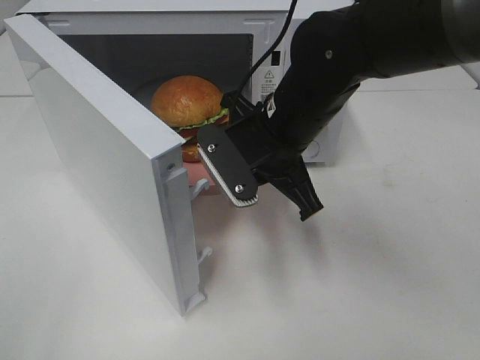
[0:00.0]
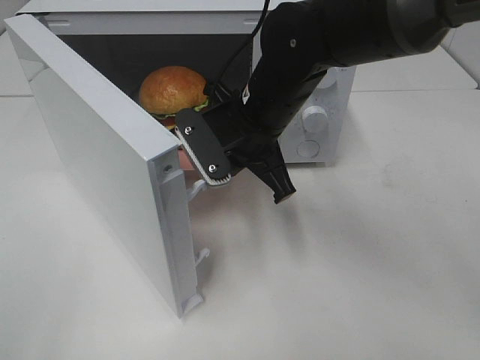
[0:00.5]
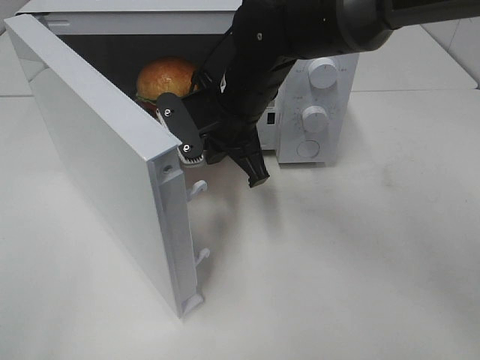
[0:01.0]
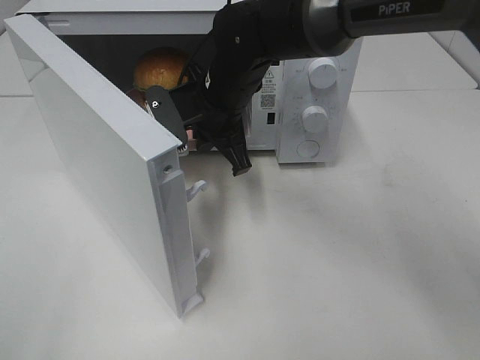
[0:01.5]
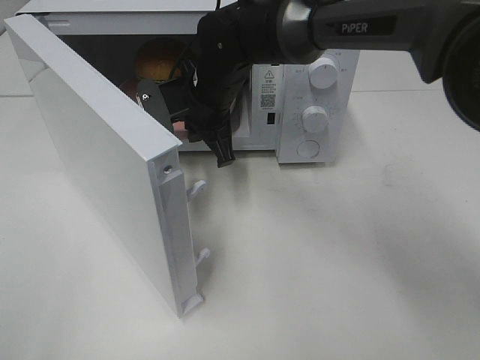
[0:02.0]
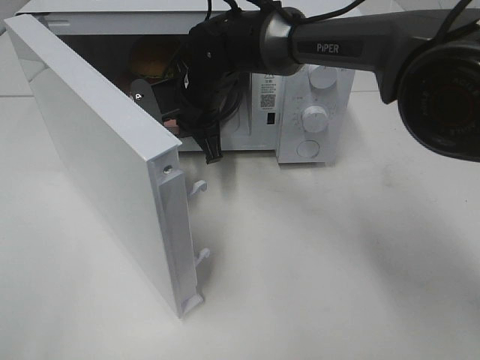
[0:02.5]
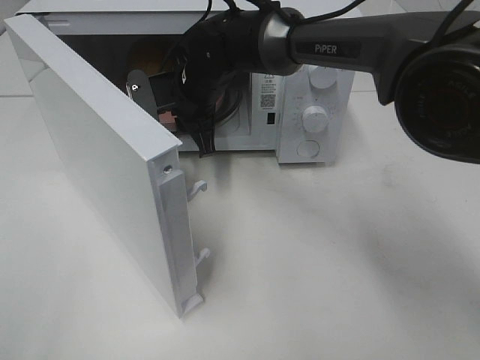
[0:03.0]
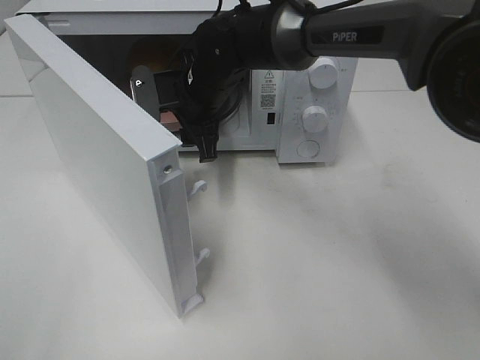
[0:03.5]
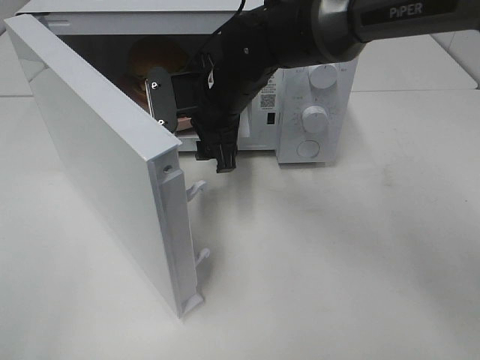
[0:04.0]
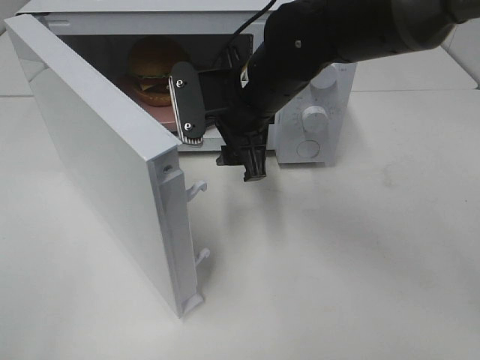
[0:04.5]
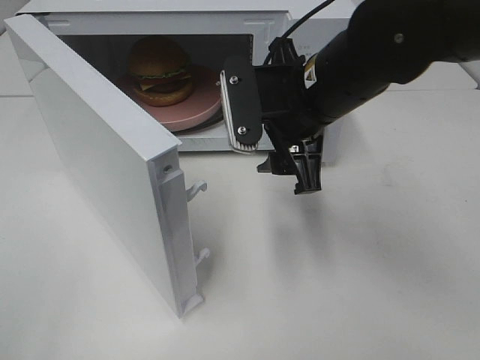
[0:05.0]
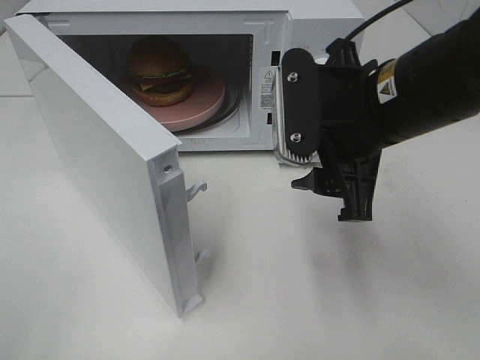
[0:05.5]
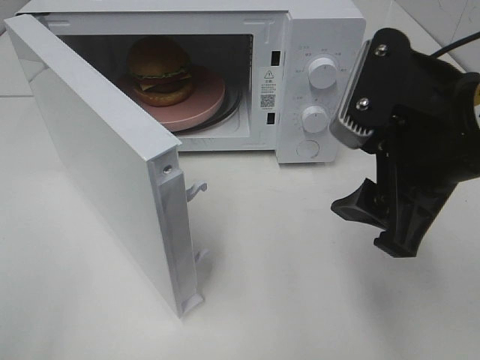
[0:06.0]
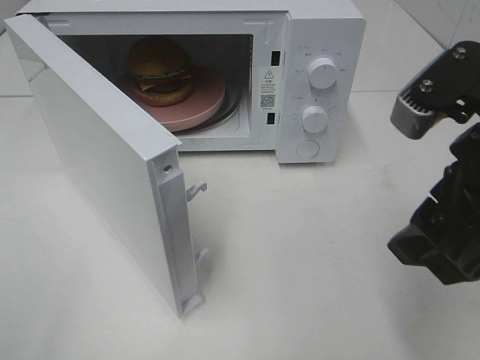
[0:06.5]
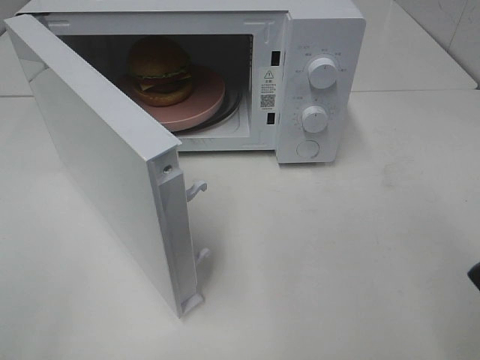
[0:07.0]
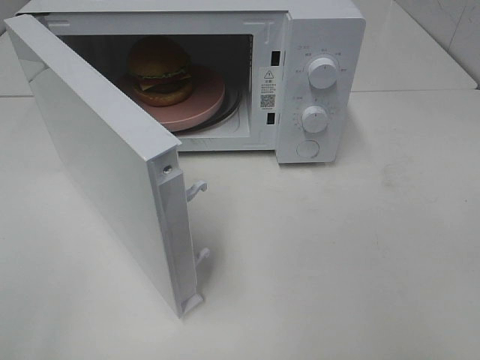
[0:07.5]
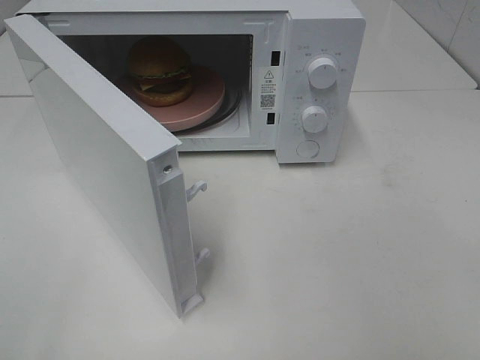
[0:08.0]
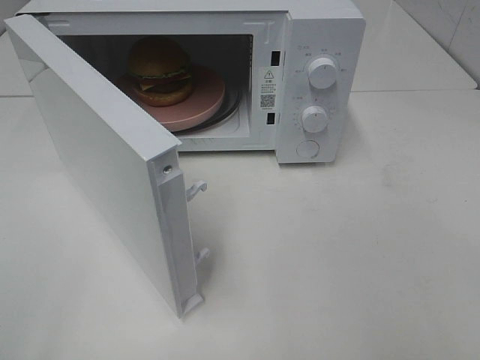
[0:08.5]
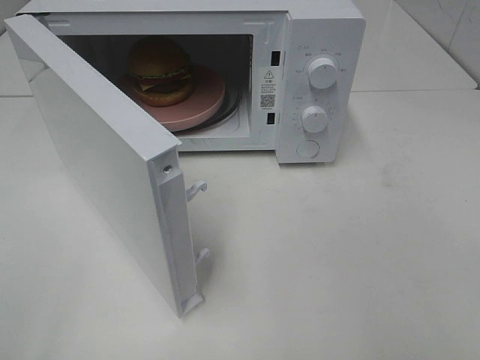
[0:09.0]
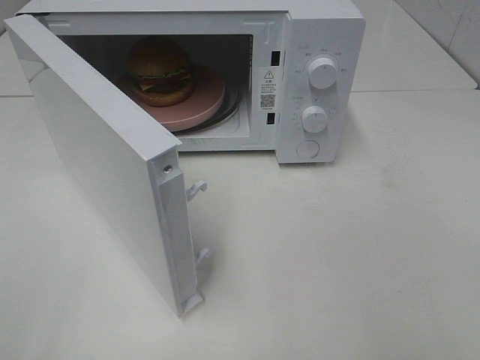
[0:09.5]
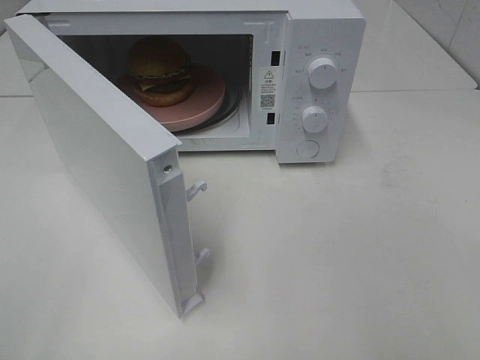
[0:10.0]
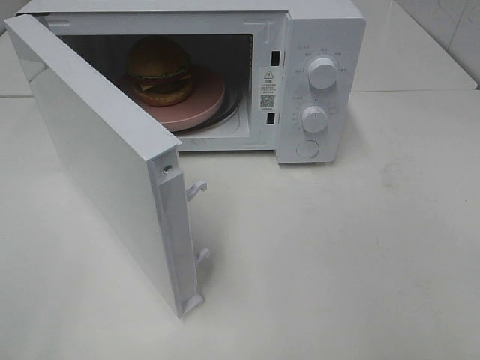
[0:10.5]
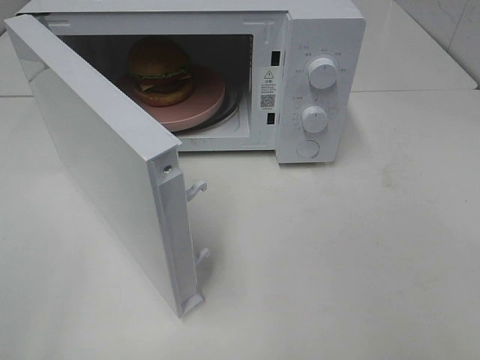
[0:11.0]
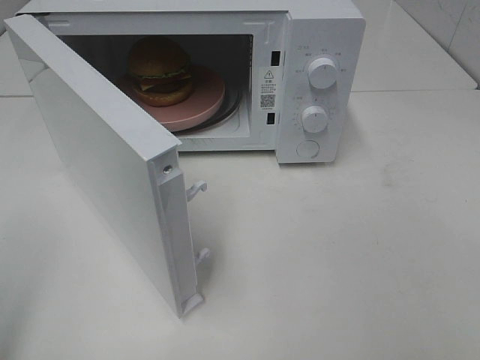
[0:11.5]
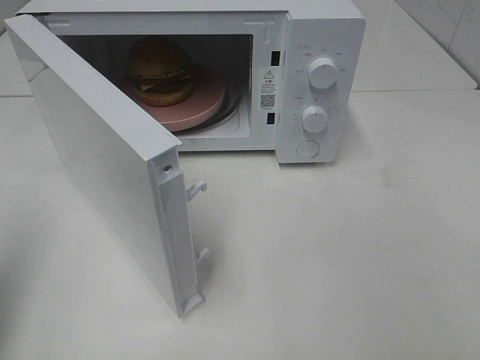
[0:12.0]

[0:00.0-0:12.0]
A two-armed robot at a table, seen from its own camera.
Task of the whole recording: Heat the burger.
Step, 0.0 to 3.0 s: Right hand: place the plate in the microwave.
0.0 to 2.0 s: The right gripper is displaced forward and to the left by about 15 cm.
2.0 to 4.0 s: The right gripper opens up.
4.0 to 6.0 s: The right gripper heads backward, to the right and upward, covering about 25 cm.
6.0 to 8.0 s: The right gripper moves backward and to the right, some 20 cm.
10.0 to 12.0 s: The left gripper moves forward, approximately 15 cm, and closes its fingers.

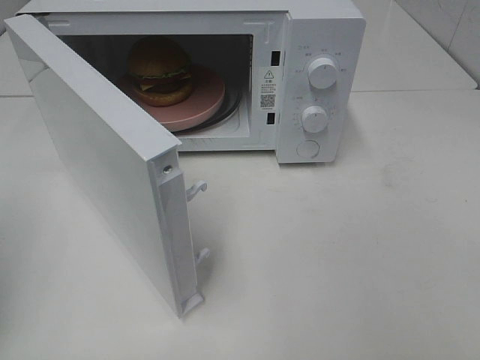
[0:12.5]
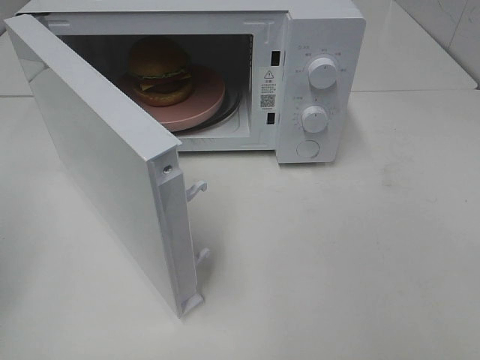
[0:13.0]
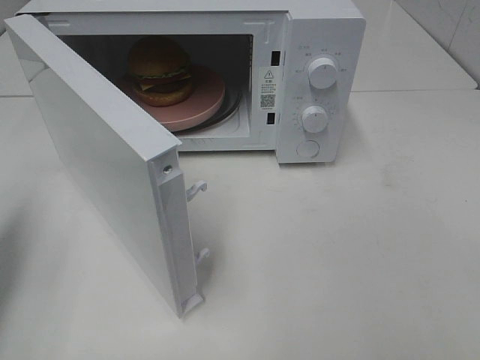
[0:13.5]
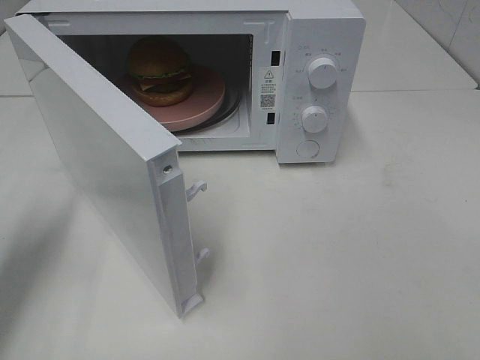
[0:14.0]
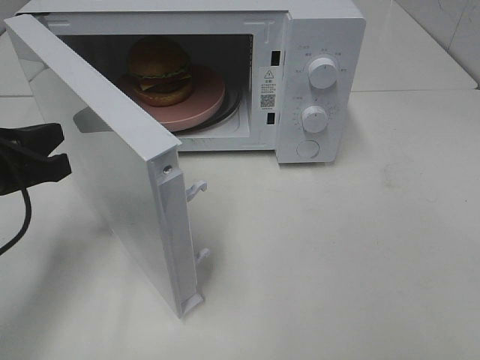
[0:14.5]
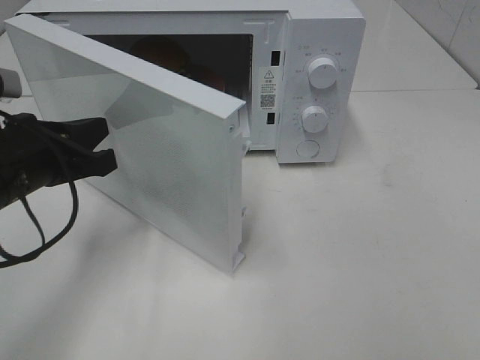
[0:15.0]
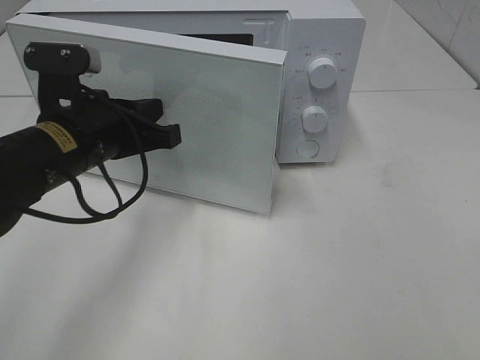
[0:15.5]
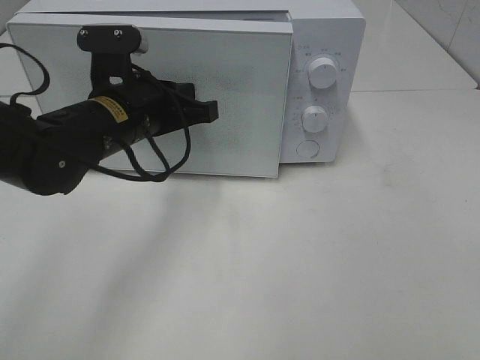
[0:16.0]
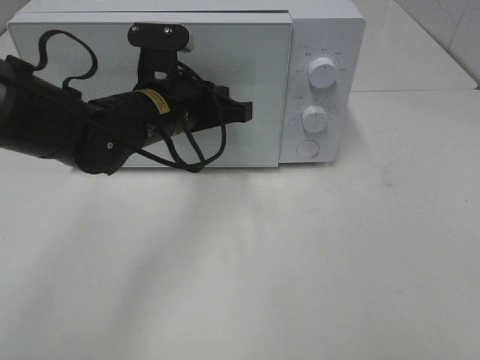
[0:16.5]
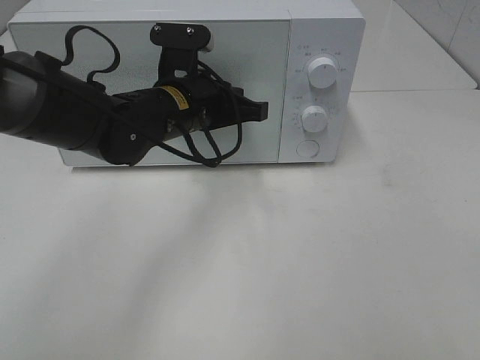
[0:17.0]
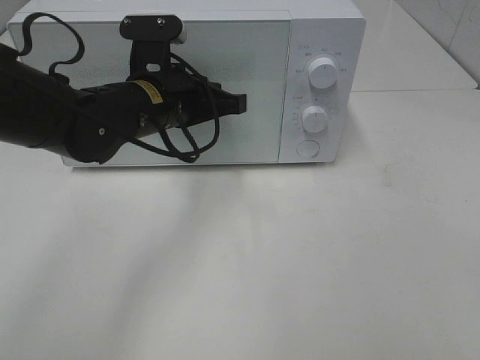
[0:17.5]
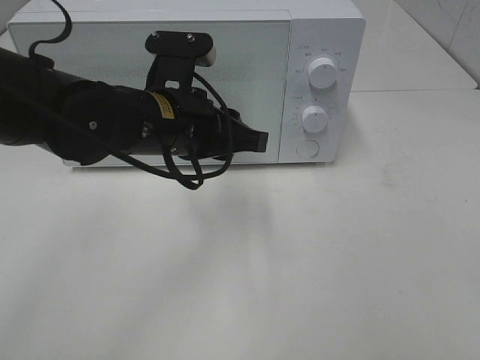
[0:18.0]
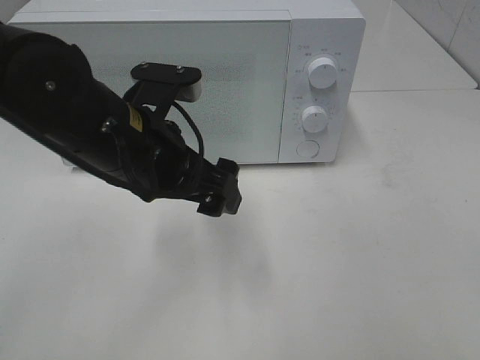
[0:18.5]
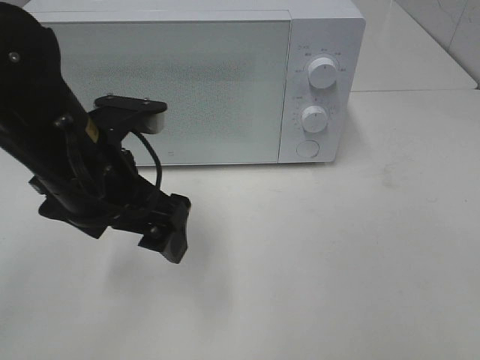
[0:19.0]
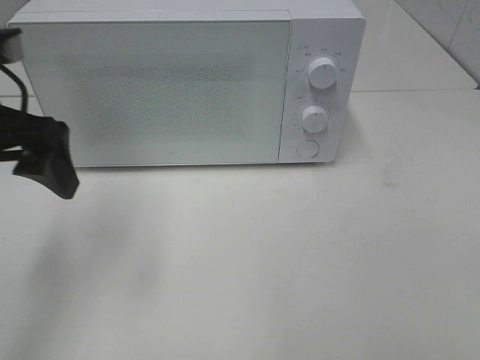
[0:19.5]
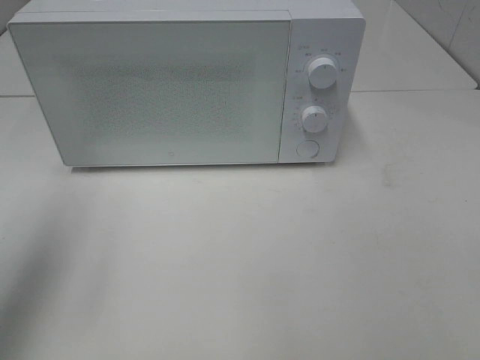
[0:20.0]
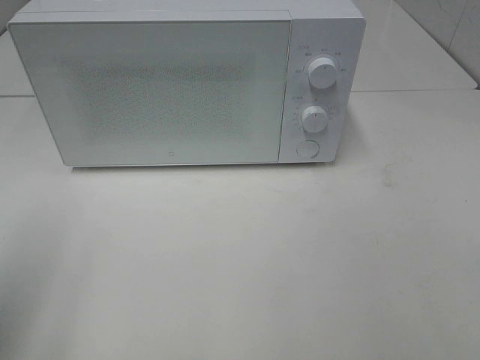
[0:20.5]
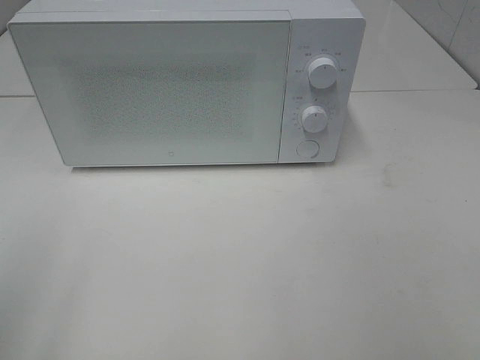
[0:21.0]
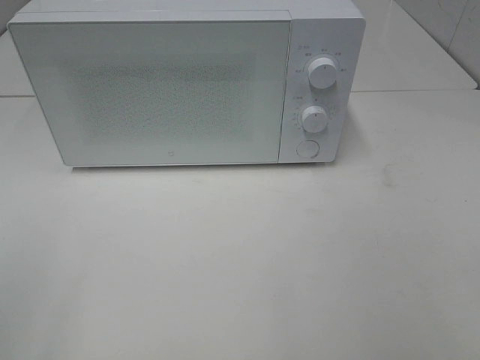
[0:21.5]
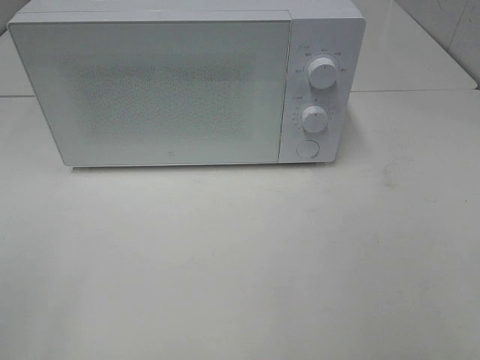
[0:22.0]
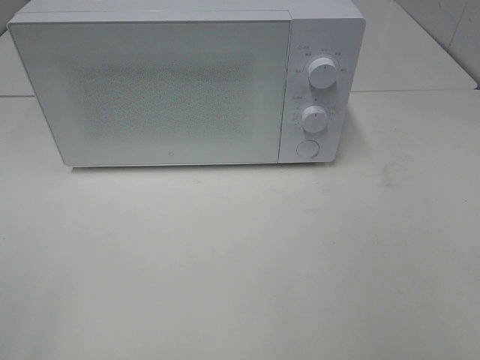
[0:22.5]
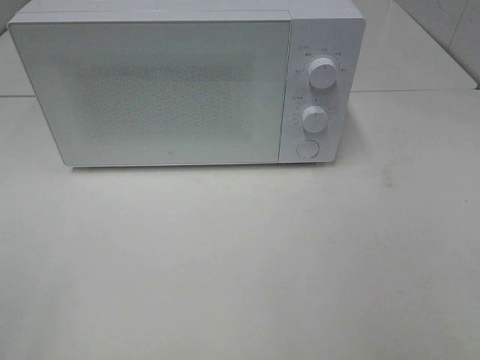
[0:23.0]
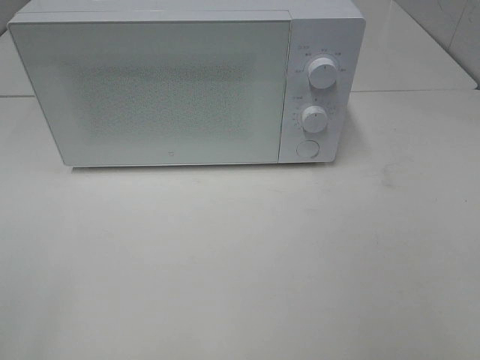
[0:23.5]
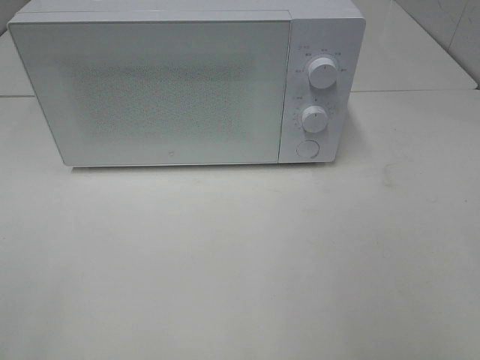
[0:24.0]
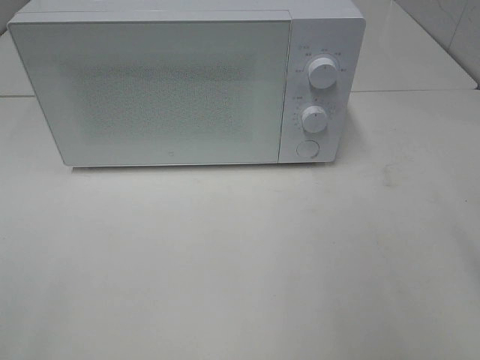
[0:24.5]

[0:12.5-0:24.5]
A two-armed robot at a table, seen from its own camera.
Task of the whole recording: Heat the burger.
Step, 12.5 to 17.5 s: Left hand: close the microwave door.
12.5 to 14.5 s: The left gripper moves to the right, forward and downward, roughly 15 cm.
14.5 to 16.5 s: The left gripper is displaced to the right and forward by approximately 20 cm.
16.5 to 18.5 s: The left gripper heads backward, covering approximately 10 cm, and opens.
18.5 to 20.5 s: The left gripper moves to the left and backward, about 25 cm.
20.5 to 22.5 s: The left gripper heads backward, covering about 10 cm.

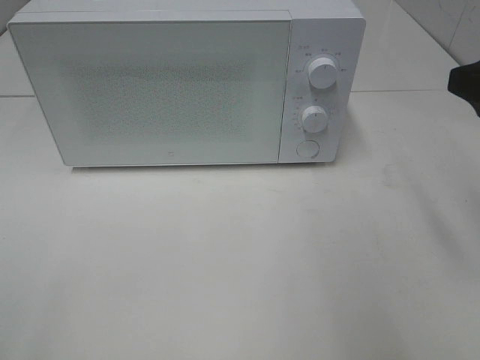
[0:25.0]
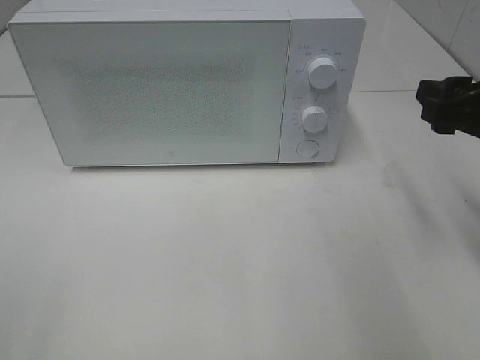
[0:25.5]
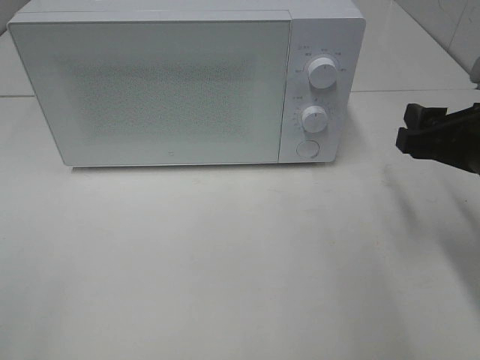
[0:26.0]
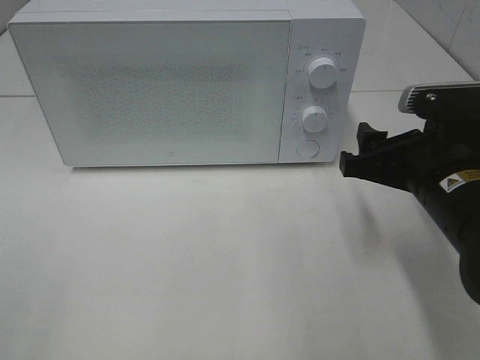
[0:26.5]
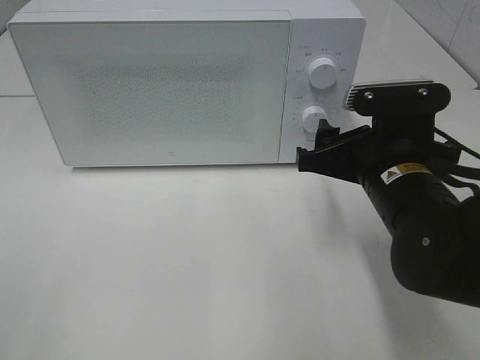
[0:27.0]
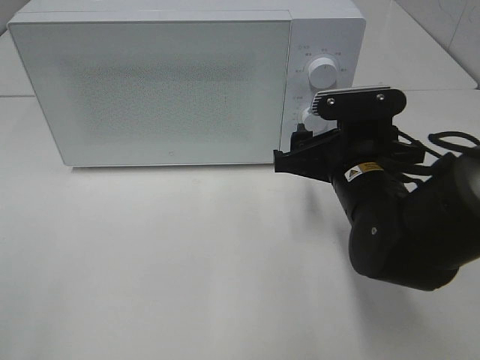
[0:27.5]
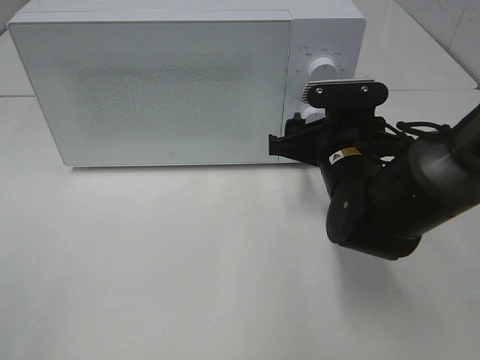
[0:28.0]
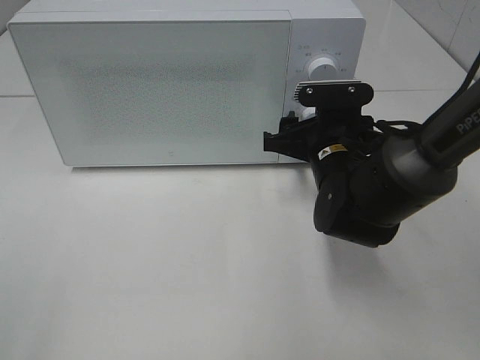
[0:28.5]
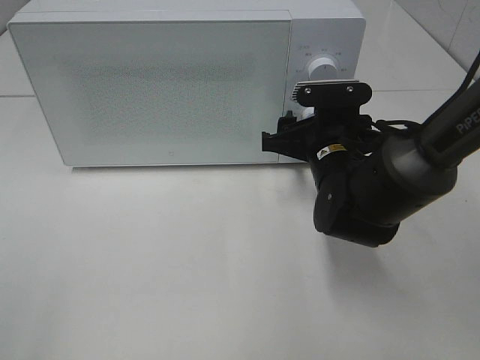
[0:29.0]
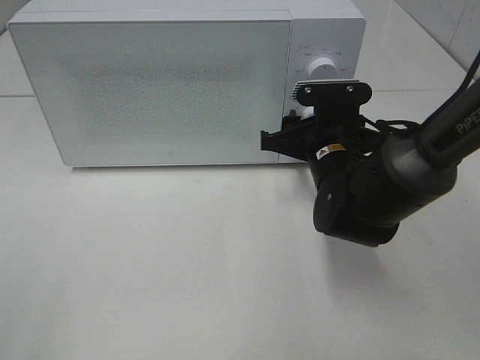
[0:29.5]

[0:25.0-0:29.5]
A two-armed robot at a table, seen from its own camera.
Task of the whole recording: Heat the burger.
25.0 to 27.0 s: The right gripper heads downward and to the left, covering roughly 15 cm.
27.0 to 29.5 s: The right gripper moves forward, roughly 10 cm.
